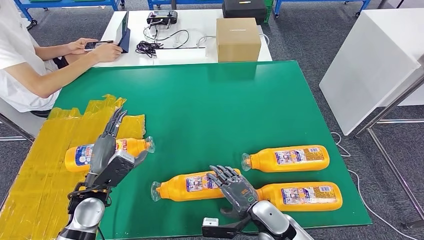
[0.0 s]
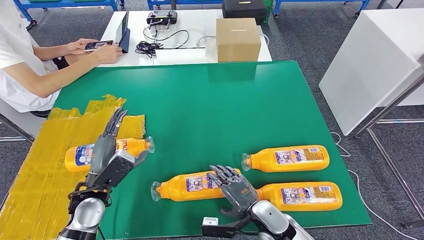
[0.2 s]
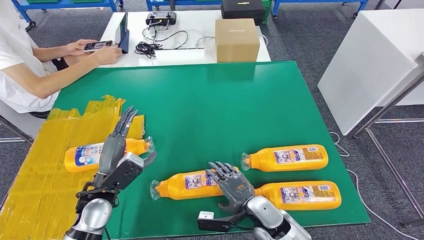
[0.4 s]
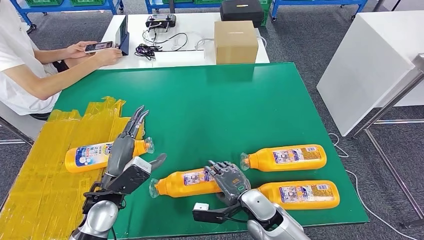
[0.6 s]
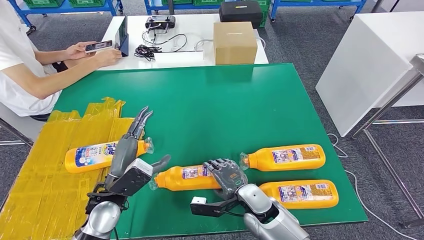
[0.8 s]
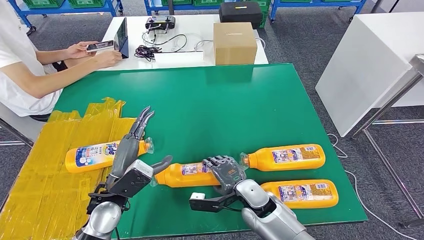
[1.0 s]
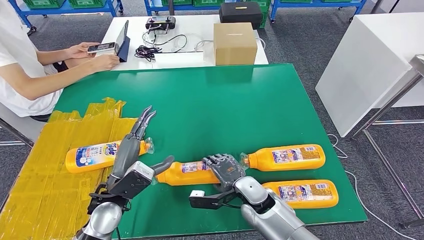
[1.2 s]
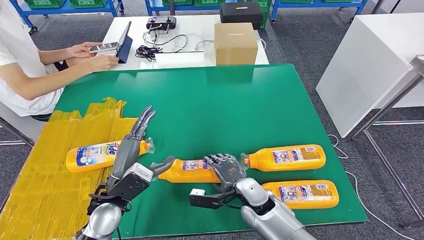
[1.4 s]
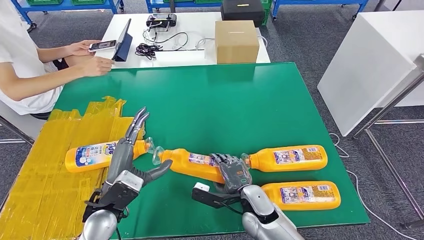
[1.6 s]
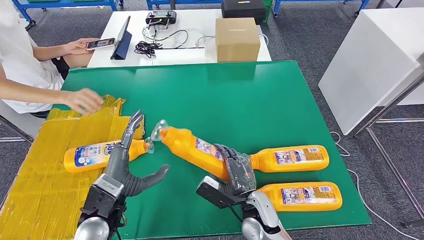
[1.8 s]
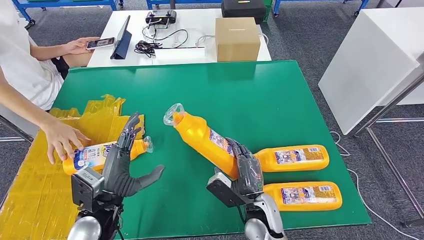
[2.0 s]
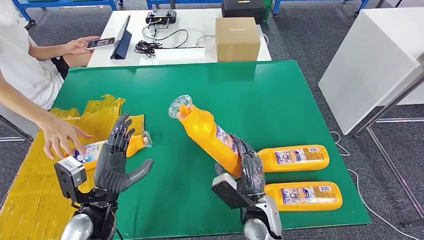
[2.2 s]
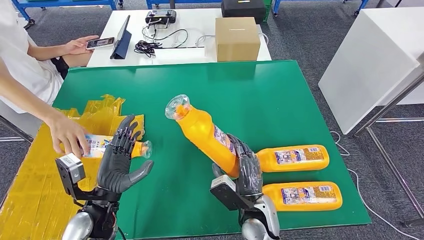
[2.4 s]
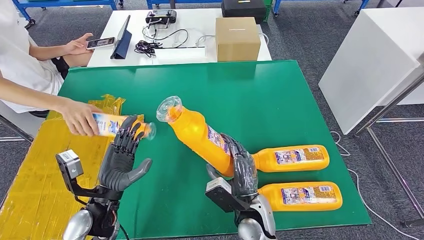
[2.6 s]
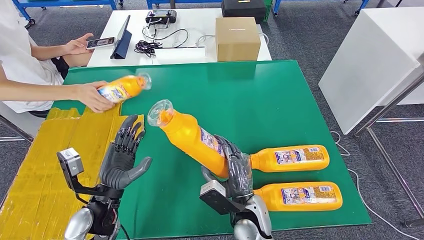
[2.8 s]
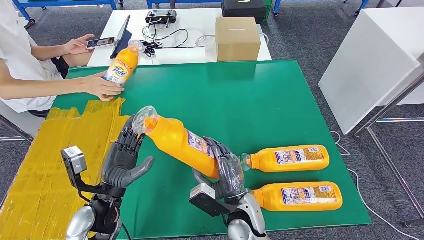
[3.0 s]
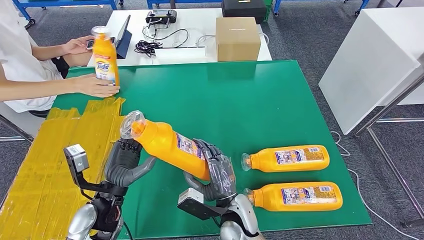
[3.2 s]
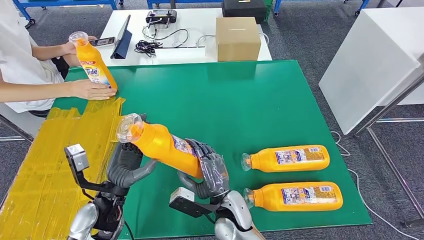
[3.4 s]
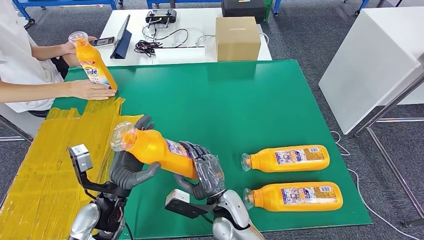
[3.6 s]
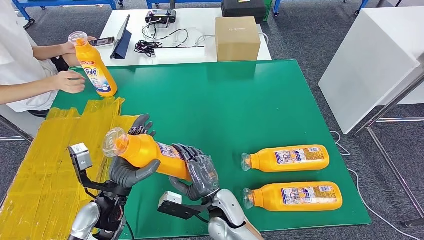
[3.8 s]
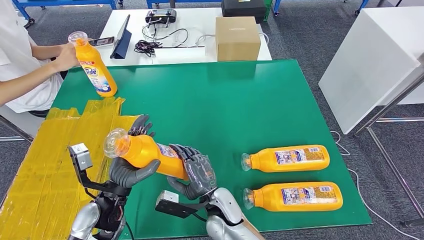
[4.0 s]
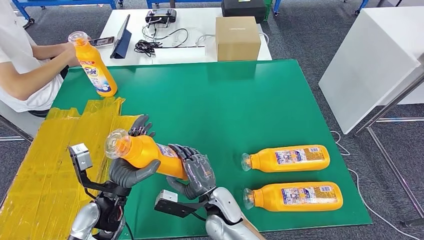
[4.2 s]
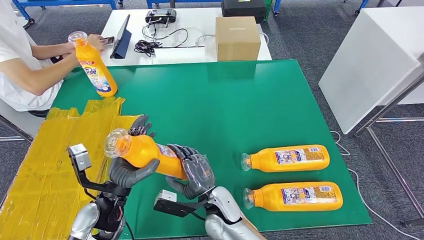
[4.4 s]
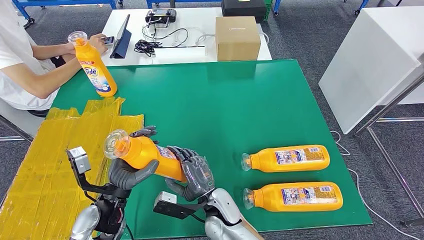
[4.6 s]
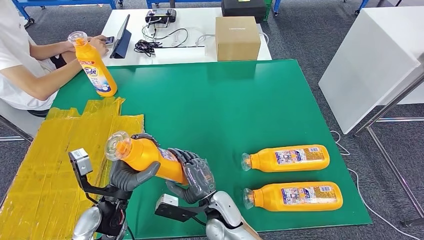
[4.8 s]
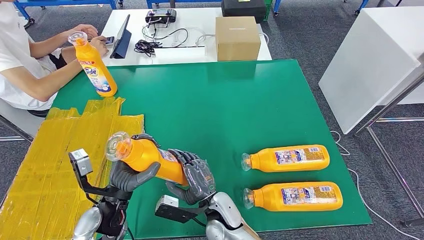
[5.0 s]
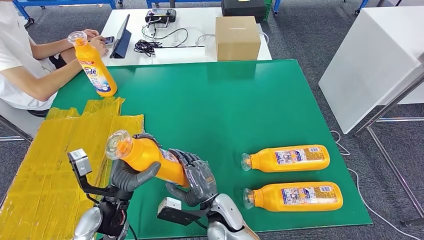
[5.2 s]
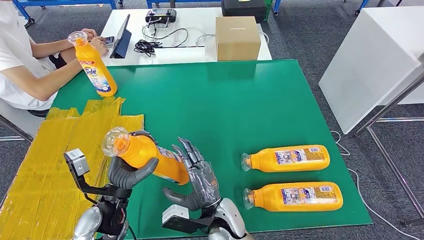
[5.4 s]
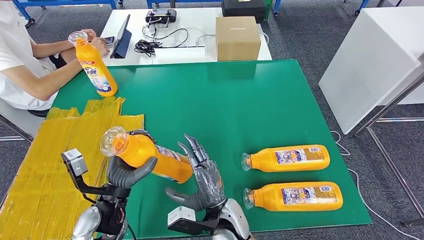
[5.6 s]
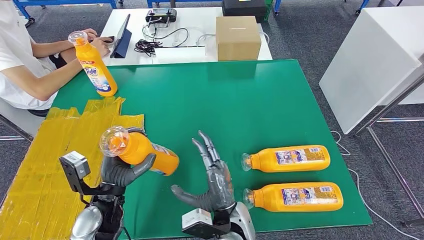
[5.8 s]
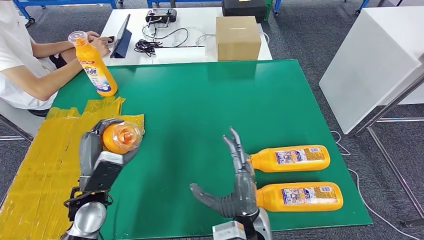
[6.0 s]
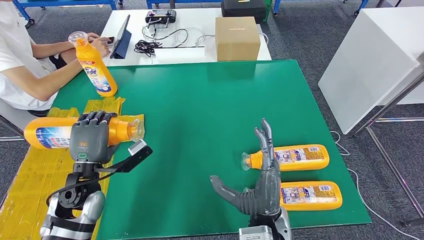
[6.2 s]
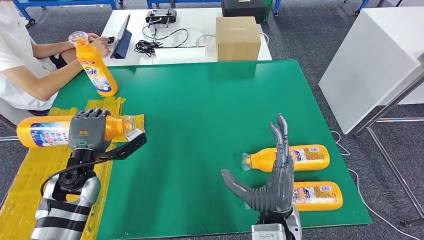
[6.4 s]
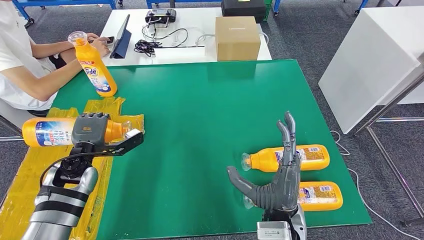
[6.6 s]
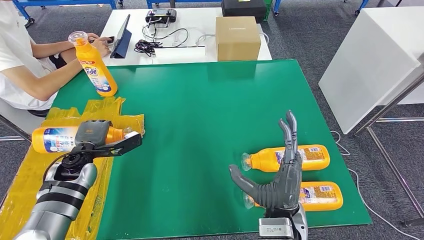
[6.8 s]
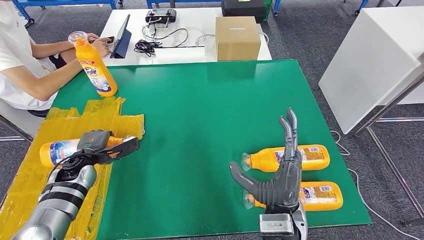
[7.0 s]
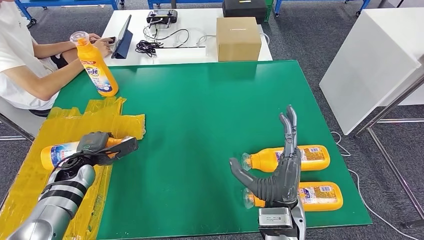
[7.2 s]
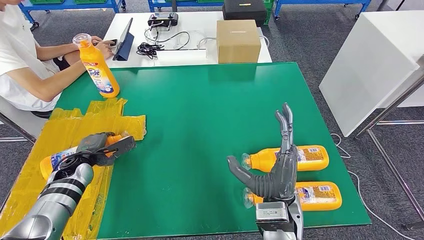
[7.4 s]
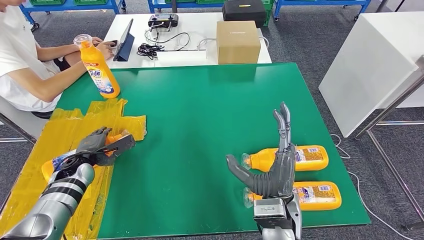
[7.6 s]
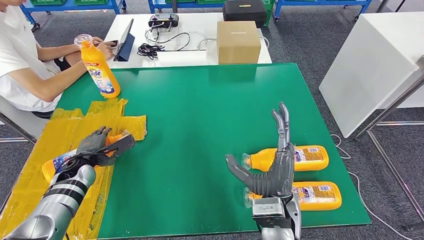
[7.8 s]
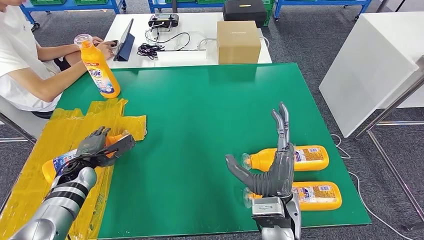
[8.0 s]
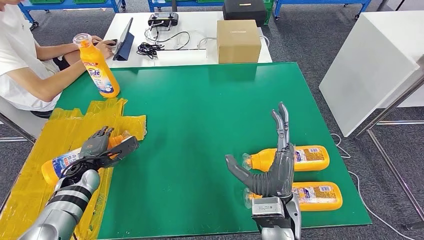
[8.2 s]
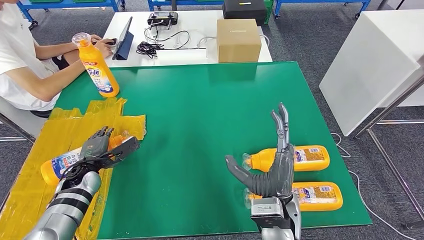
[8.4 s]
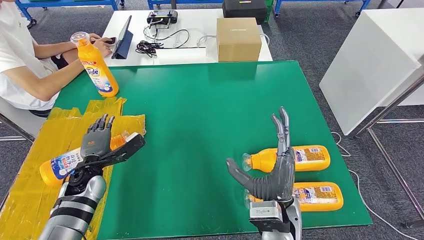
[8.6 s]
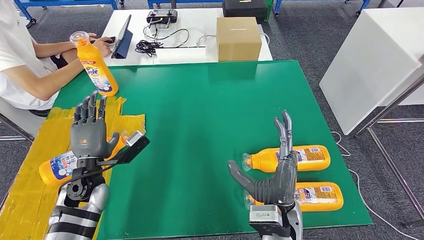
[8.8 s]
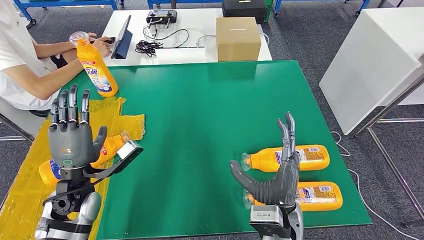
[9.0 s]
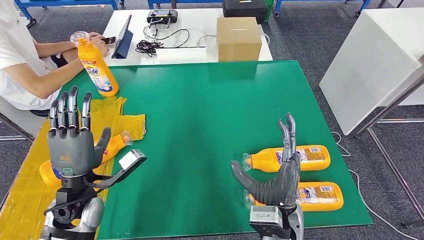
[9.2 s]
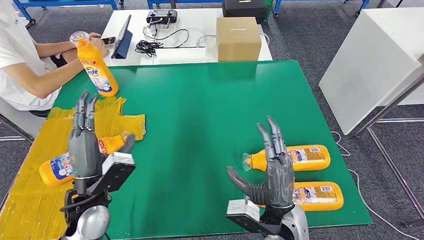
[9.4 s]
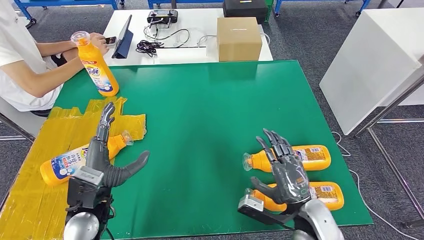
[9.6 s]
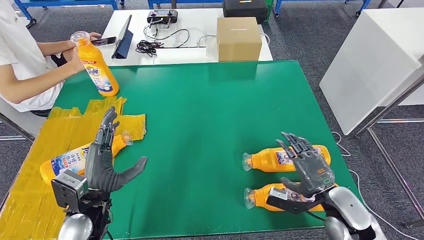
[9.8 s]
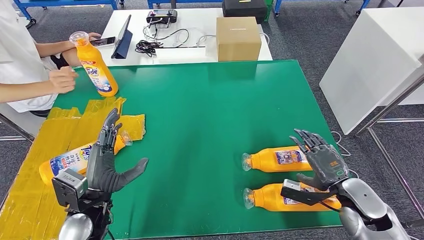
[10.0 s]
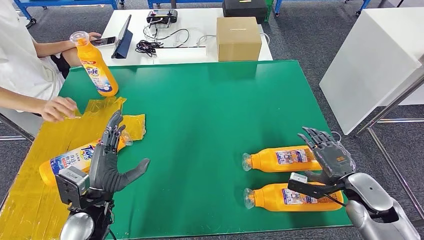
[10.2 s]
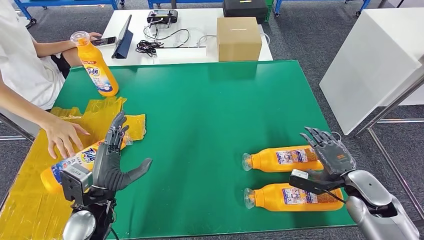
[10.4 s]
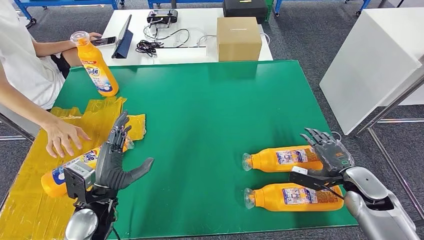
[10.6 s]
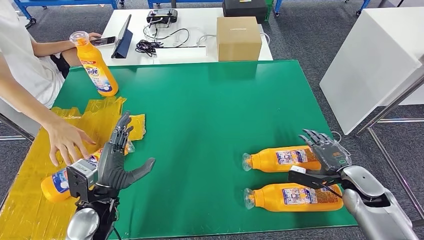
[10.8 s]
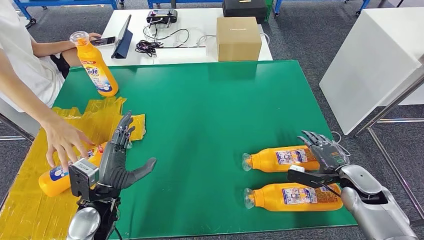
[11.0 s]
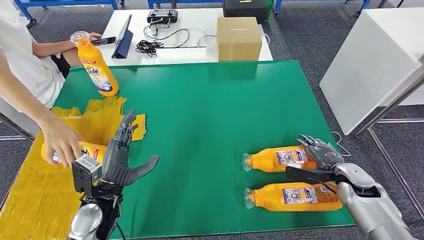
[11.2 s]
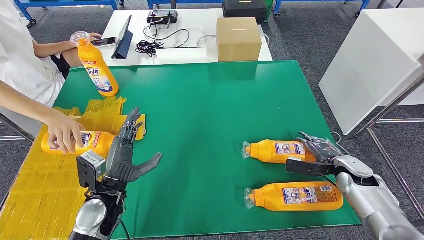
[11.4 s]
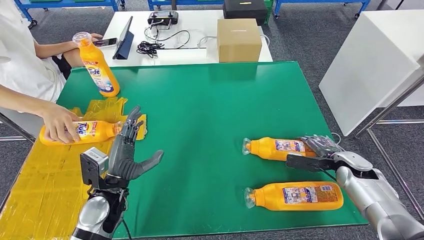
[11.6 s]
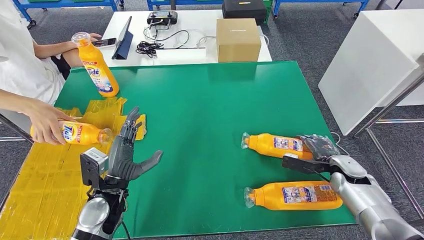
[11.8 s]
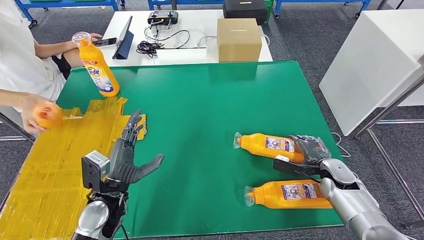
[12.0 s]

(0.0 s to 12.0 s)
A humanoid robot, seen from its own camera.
Step, 0.0 s - 3.2 s: Pick up the fast-moving consumer goods bottle from the table.
Step, 3.4 s - 7.0 s: Flip the fast-moving consumer goods bottle to the front side.
3.0 s - 4.4 s: The right hand travels to the left by approximately 5 cm.
4.4 s - 6.0 s: The right hand heads to the right, upward and backward, covering approximately 10 cm.

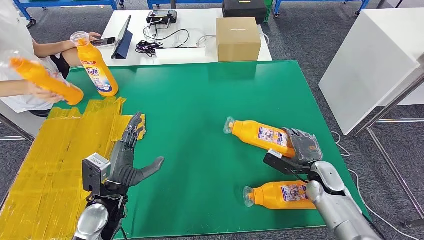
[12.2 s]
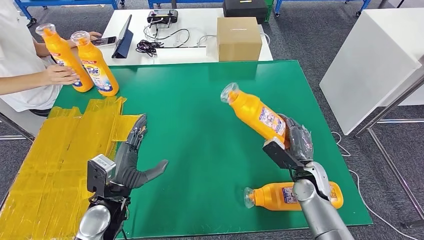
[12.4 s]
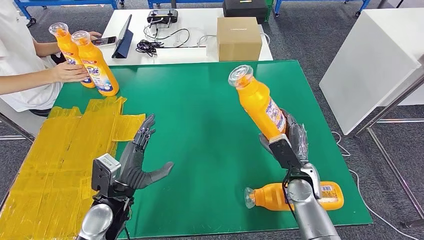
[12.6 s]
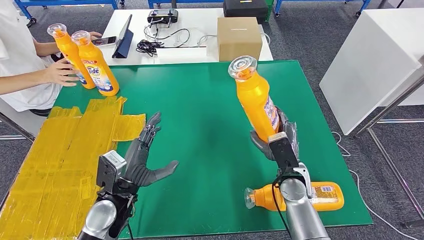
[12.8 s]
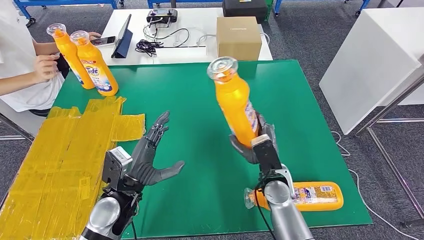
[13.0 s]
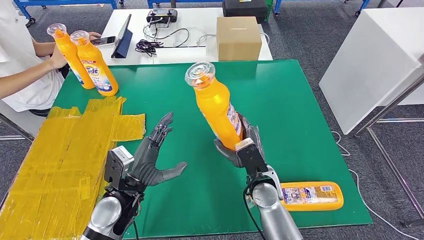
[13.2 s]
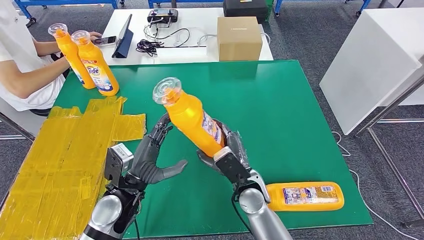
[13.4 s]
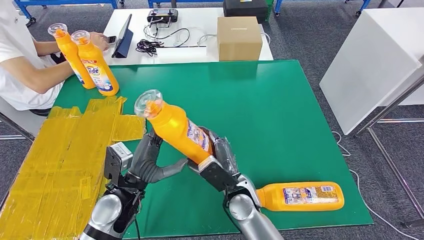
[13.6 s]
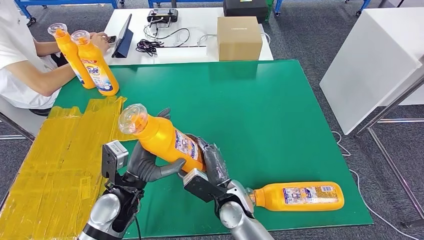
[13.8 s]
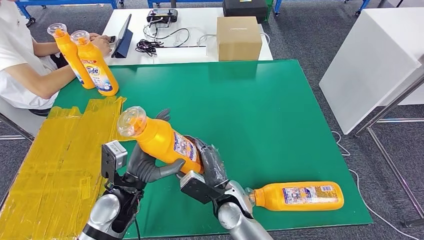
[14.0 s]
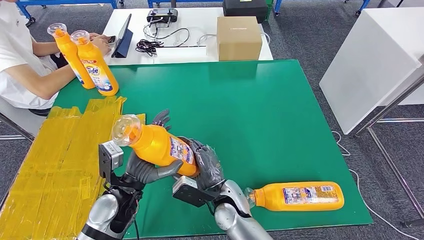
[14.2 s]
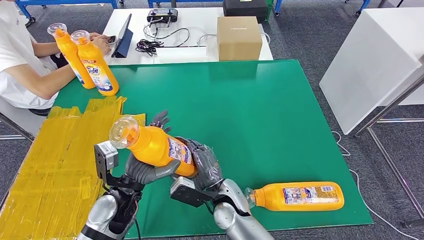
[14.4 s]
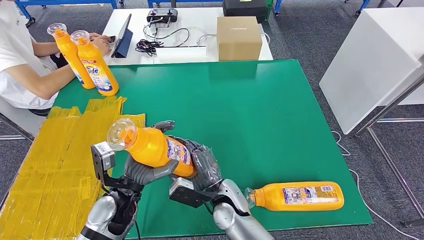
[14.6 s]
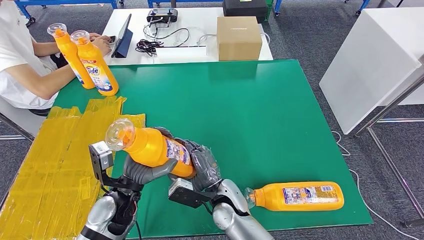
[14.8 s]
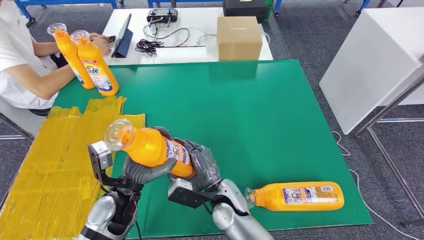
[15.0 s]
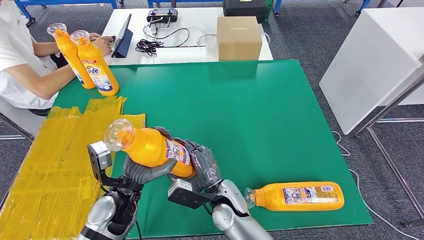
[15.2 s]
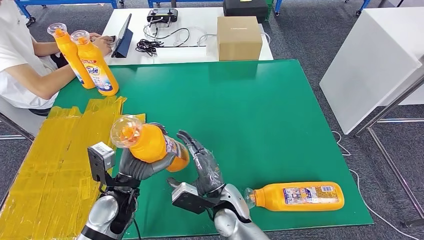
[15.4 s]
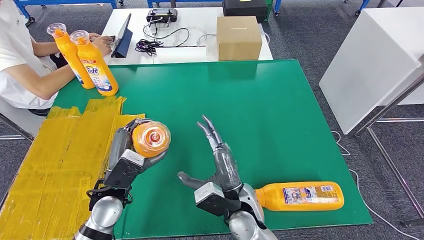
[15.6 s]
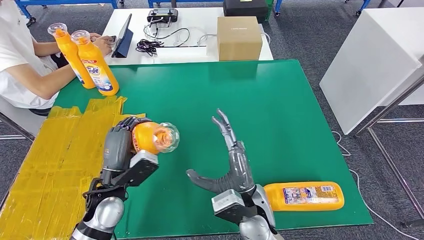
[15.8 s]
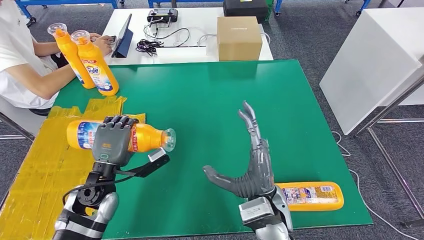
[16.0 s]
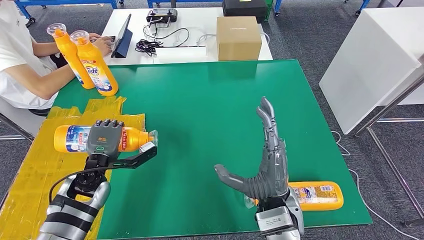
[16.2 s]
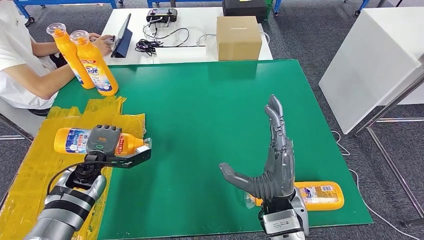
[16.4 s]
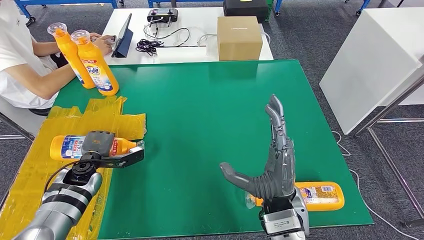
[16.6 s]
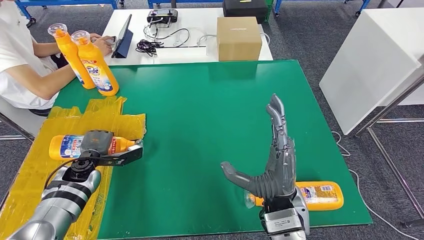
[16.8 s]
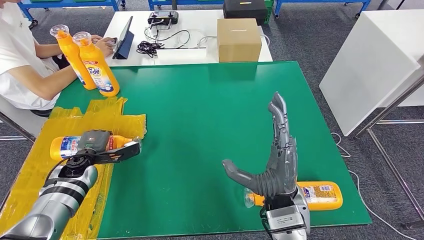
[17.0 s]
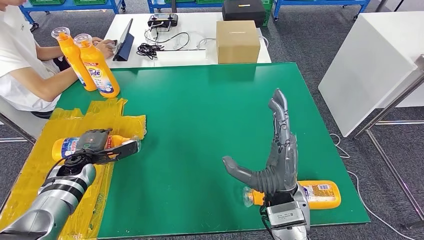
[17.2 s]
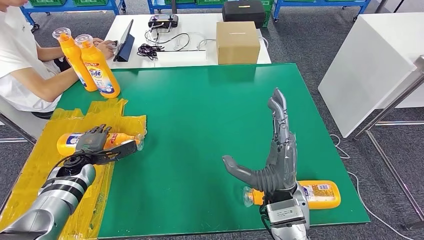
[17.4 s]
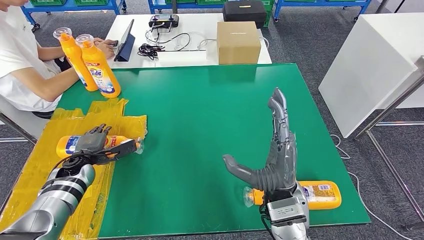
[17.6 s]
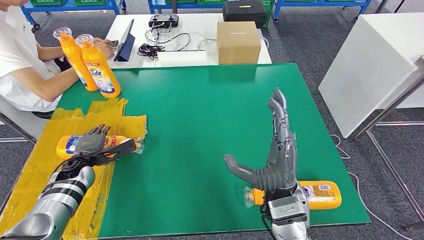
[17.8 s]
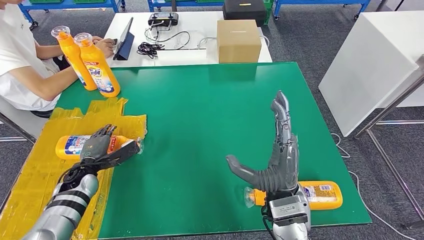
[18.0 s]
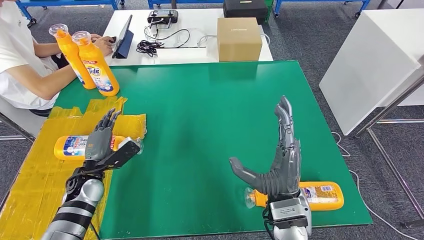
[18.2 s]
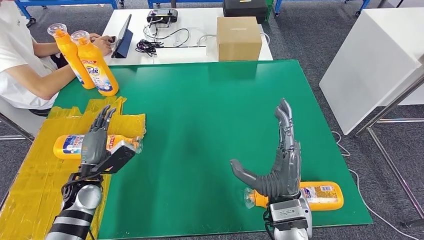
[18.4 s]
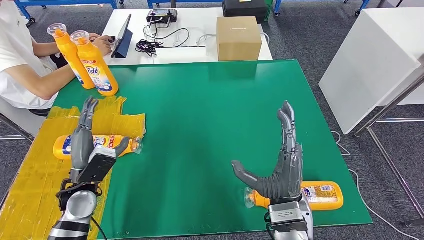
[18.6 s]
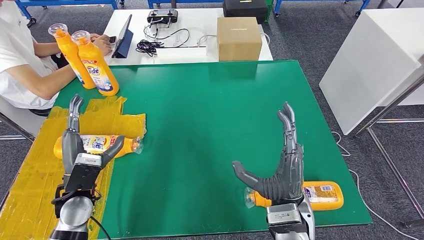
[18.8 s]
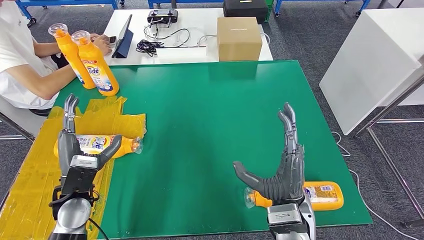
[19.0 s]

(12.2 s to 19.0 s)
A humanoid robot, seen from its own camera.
Step, 13.6 s - 17.4 s: Flip the fast-moving consumer goods bottle to the front side.
13.6 s - 15.0 s: The right hand shifts by approximately 5 cm.
15.0 s - 16.2 s: The left hand is displaced to the left and forward by some 10 cm. The right hand heads upward, to the right and backward, covering about 15 cm.
